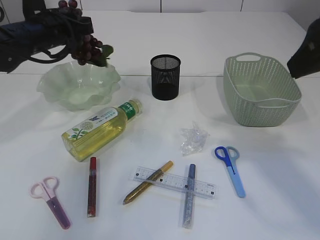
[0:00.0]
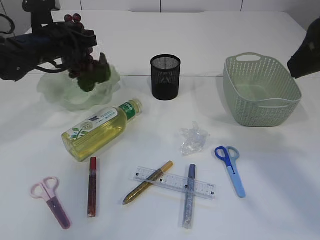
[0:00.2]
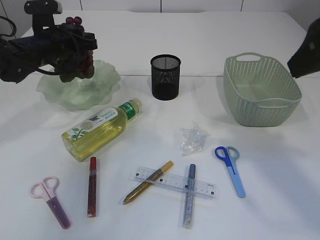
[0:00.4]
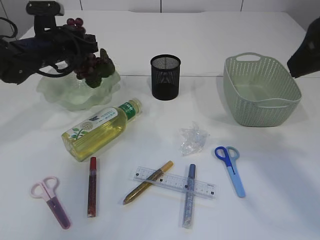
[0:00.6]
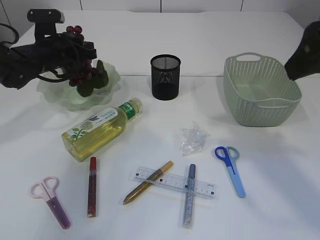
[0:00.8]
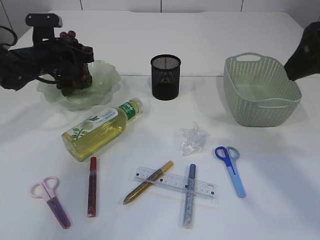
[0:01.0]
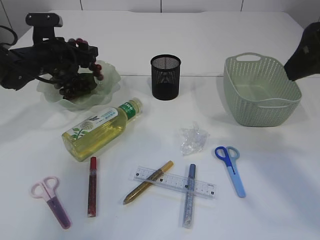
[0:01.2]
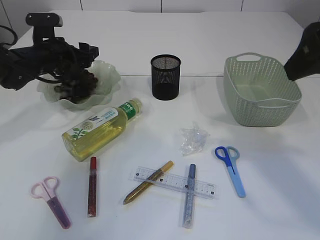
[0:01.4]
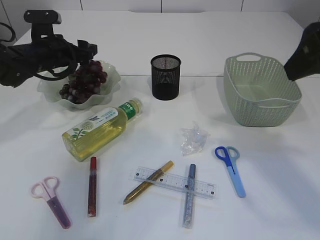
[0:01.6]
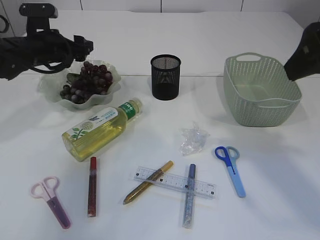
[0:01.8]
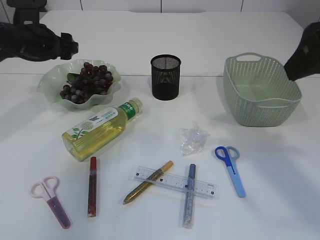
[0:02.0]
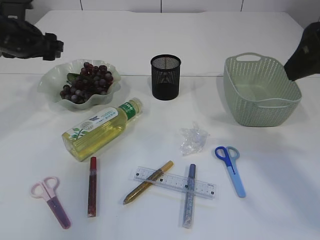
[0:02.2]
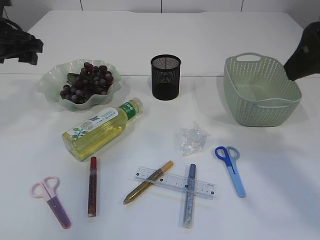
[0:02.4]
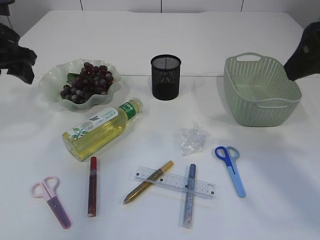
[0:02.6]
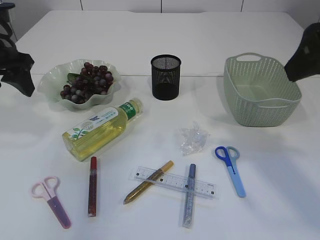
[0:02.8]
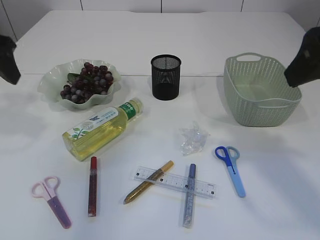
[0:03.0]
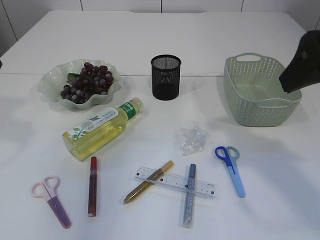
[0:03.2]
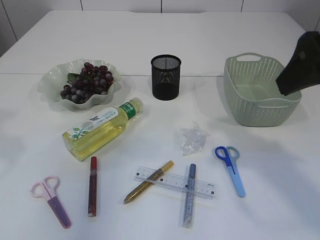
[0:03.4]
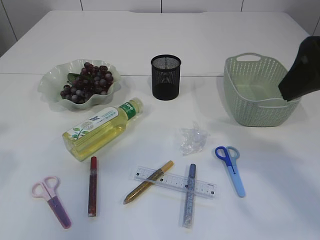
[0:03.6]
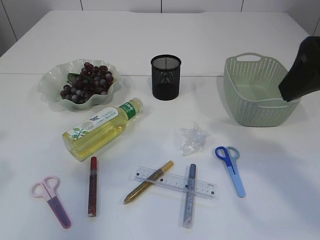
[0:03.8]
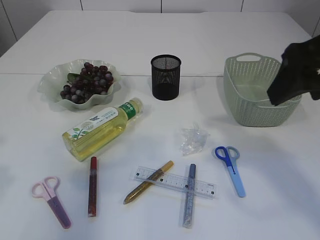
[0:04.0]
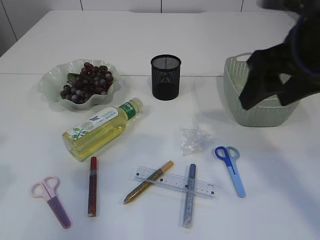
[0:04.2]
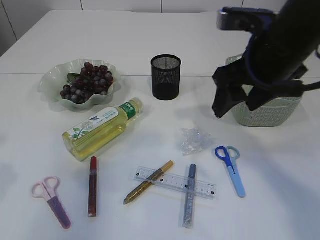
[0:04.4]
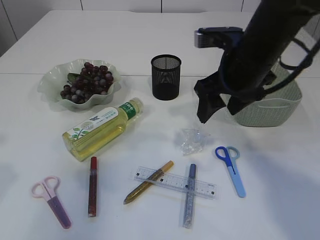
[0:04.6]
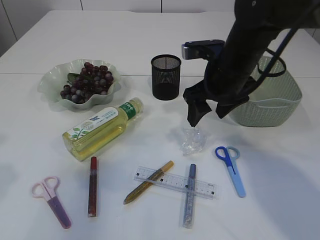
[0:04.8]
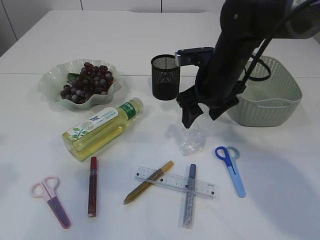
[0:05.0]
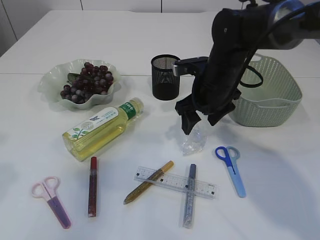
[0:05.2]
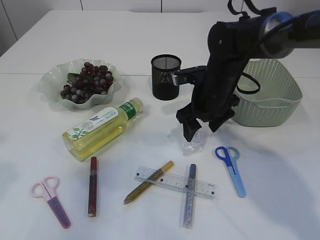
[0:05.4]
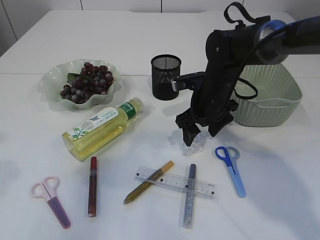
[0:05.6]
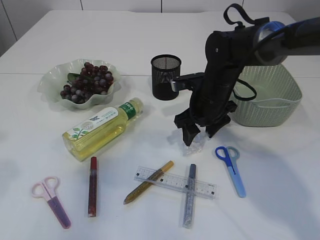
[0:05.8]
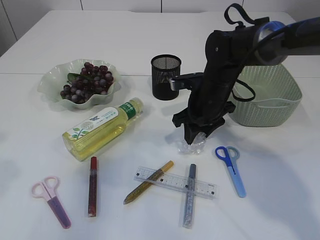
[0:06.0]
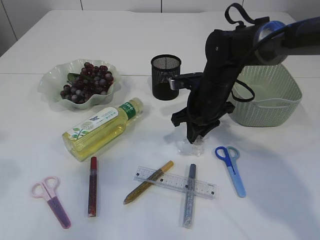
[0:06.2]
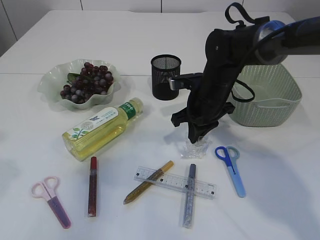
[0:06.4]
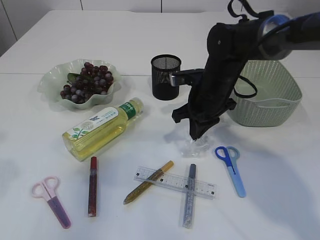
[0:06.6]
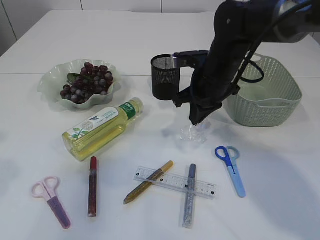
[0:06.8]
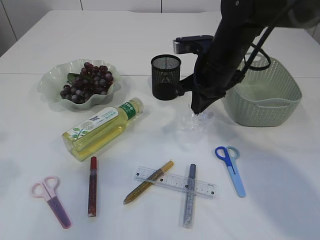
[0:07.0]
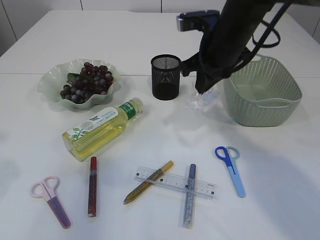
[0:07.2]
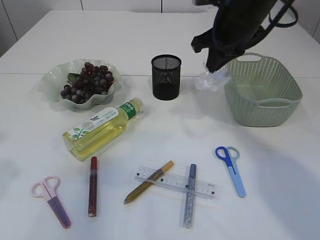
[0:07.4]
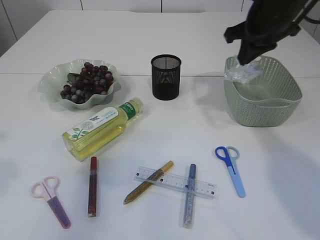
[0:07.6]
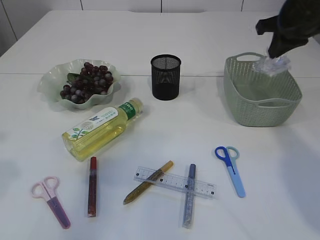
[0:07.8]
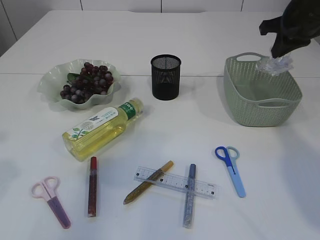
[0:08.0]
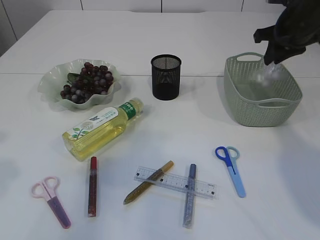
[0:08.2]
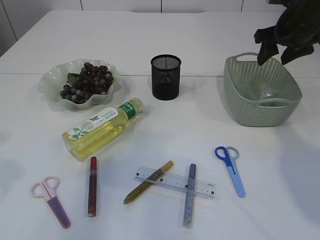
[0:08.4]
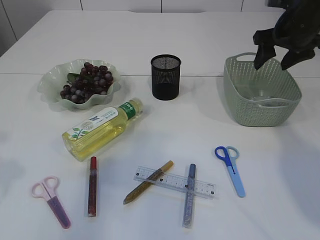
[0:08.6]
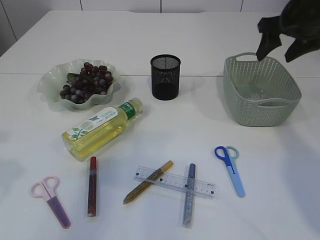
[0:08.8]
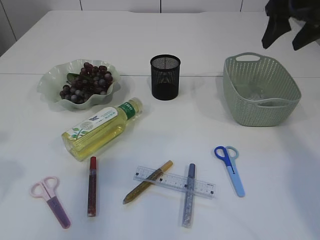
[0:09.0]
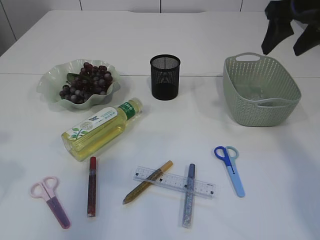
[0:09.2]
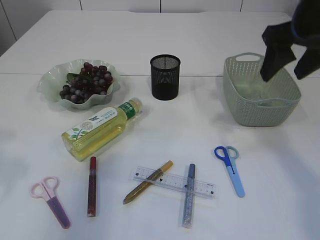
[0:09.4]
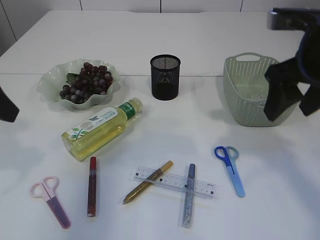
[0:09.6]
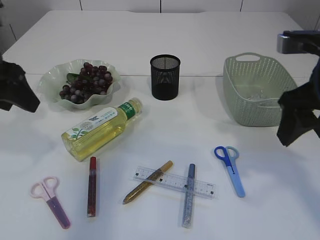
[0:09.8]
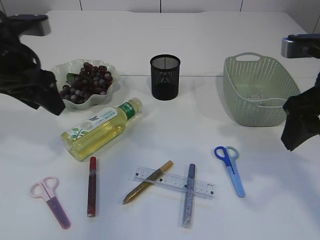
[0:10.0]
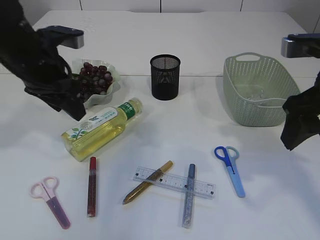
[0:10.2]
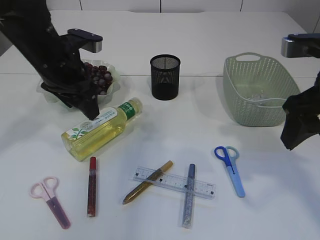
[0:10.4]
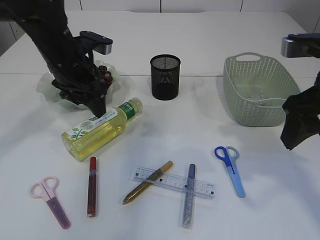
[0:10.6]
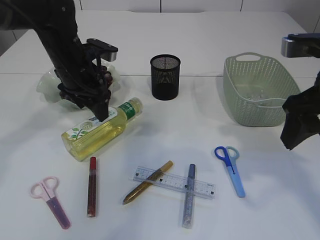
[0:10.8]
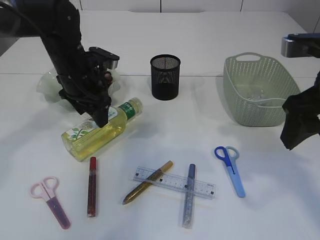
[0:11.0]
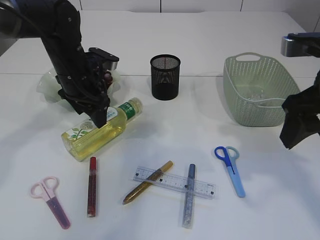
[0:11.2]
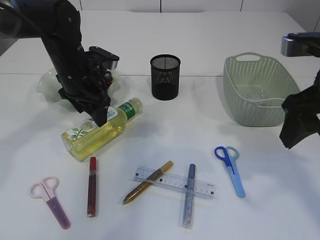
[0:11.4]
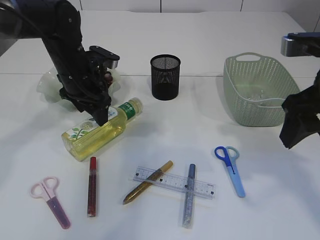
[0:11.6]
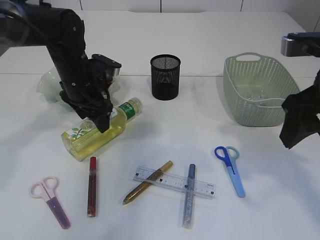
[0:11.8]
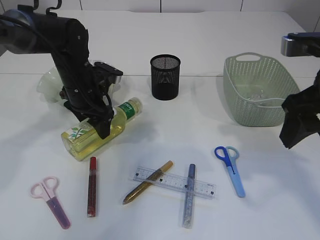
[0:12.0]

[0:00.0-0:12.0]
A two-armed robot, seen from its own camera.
Step, 0.0 to 1.6 s: Place the grapes in the plate.
Step, 1.8 to 7.0 s: Pick up the plastic.
Step, 7.2 to 8.2 s: Place the plastic in the basket.
0.0 to 1.6 s: The left gripper heads downward, covering approximately 5 cm, and opens up.
1.6 to 3.0 s: The left gripper travels backward and upward by about 20 cm.
3.0 to 4.4 s: The right gripper travels forward, downward and to the left by approximately 10 cm; the left gripper is displaced backward by roughly 10 cm.
4.4 to 6.0 s: The right gripper travels downward and forward by approximately 20 cm.
6.0 to 7.6 s: The right gripper moves upward and to the right, about 20 cm, and closes.
7.6 to 9.0 s: The right gripper shifts about 5 cm to the right, and opens up.
9.0 to 10.4 s: The left gripper travels forward, to the right and downward by roughly 20 cm. The right gripper is displaced backward by about 15 cm.
10.4 to 12.0 s: The left gripper travels downward and forward by approximately 10 cm.

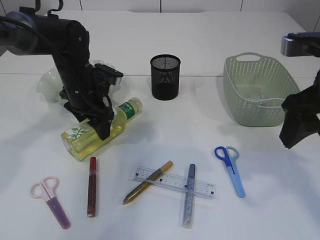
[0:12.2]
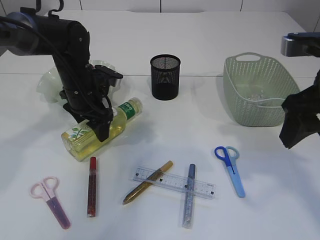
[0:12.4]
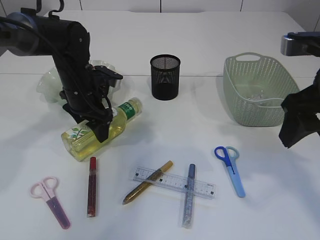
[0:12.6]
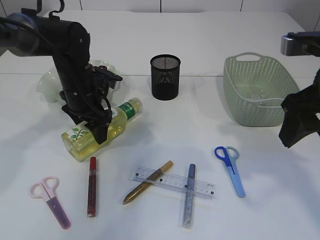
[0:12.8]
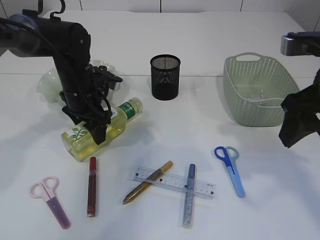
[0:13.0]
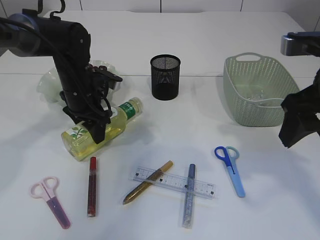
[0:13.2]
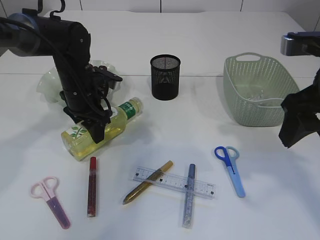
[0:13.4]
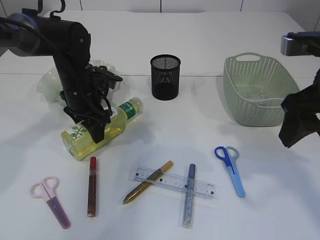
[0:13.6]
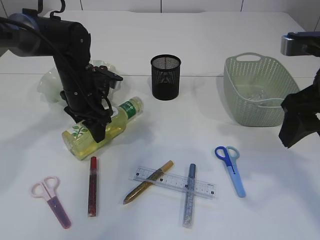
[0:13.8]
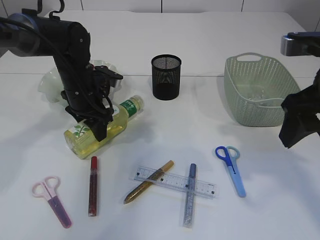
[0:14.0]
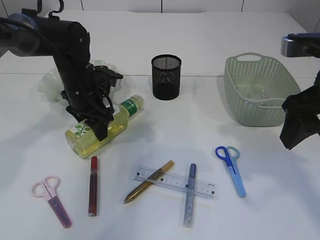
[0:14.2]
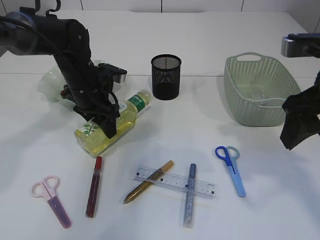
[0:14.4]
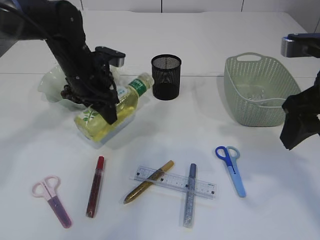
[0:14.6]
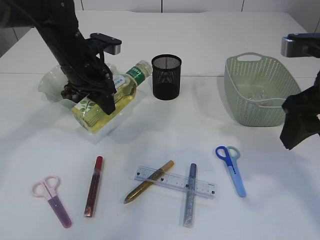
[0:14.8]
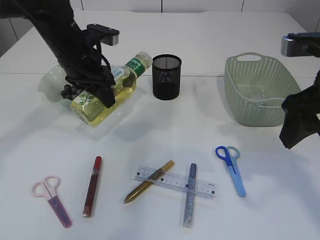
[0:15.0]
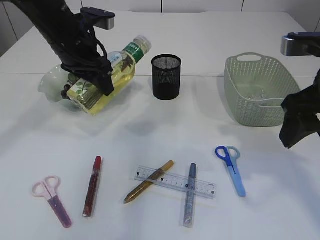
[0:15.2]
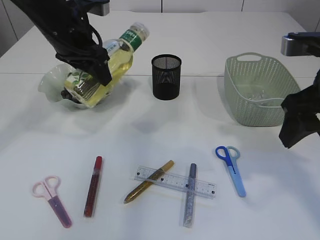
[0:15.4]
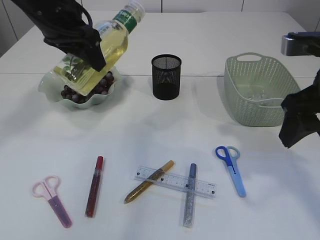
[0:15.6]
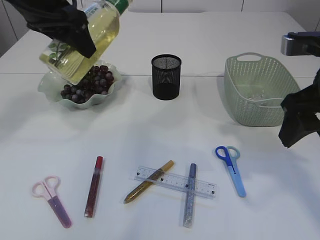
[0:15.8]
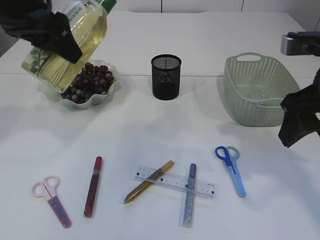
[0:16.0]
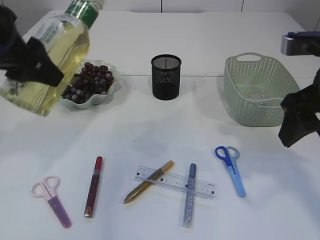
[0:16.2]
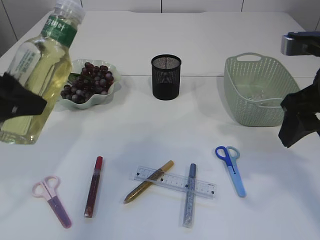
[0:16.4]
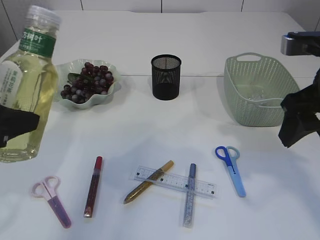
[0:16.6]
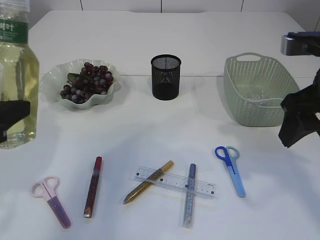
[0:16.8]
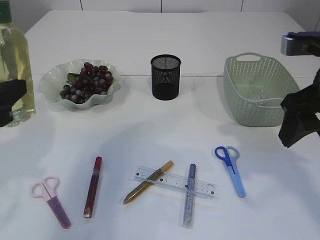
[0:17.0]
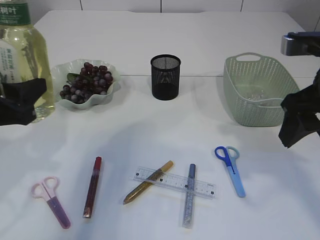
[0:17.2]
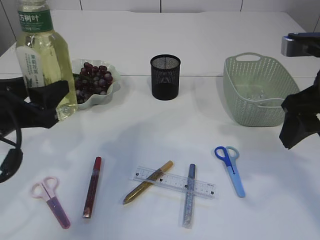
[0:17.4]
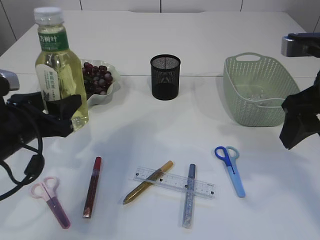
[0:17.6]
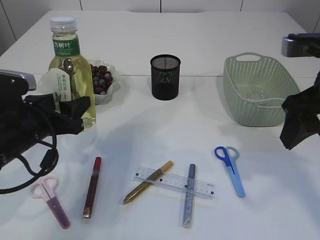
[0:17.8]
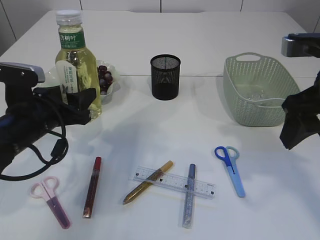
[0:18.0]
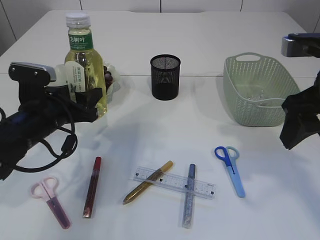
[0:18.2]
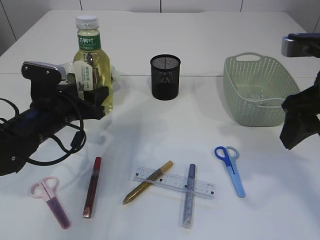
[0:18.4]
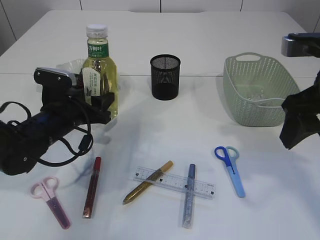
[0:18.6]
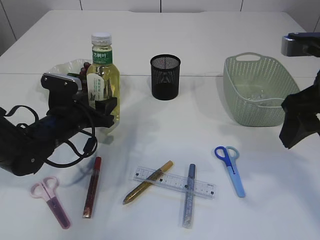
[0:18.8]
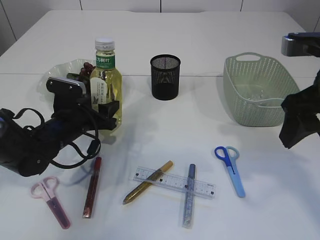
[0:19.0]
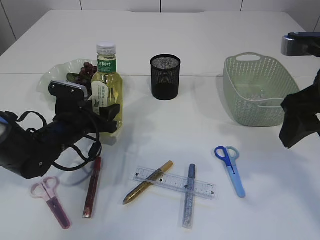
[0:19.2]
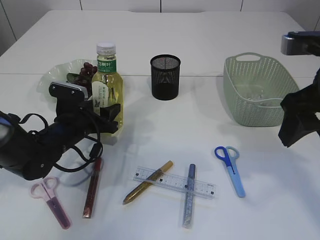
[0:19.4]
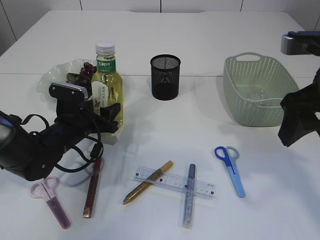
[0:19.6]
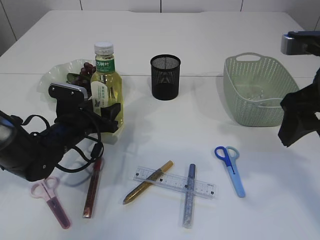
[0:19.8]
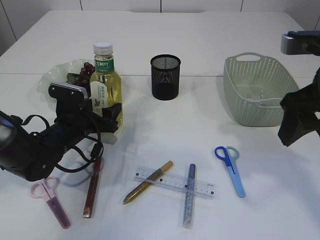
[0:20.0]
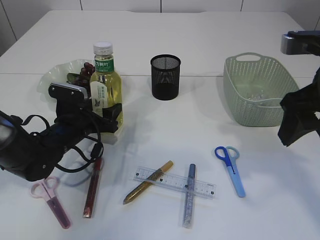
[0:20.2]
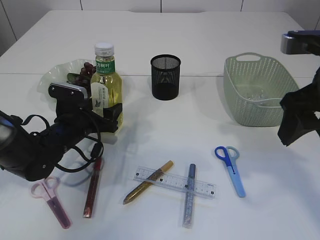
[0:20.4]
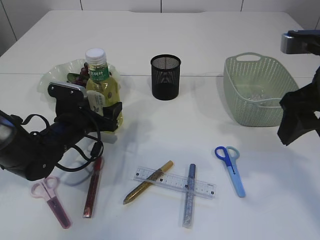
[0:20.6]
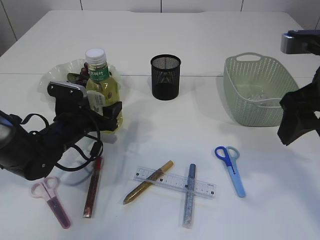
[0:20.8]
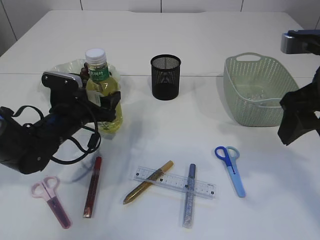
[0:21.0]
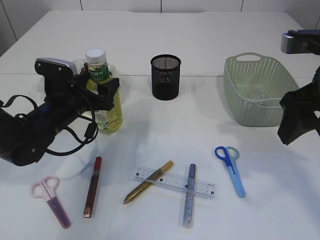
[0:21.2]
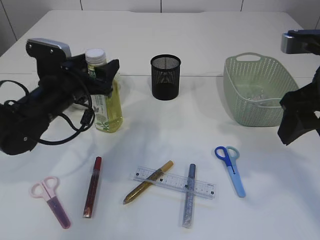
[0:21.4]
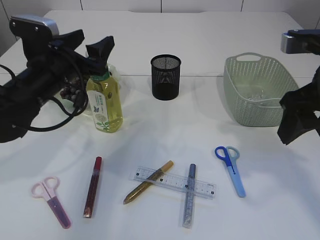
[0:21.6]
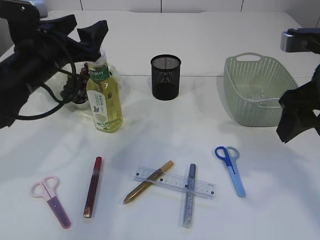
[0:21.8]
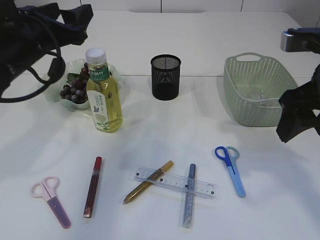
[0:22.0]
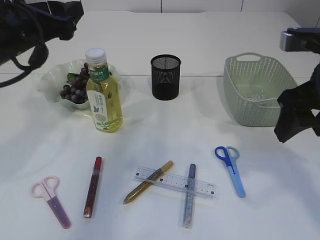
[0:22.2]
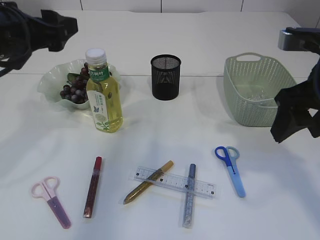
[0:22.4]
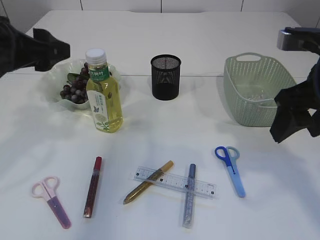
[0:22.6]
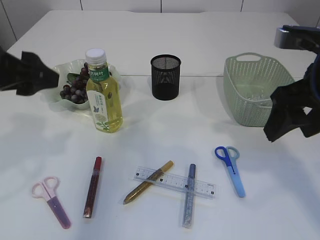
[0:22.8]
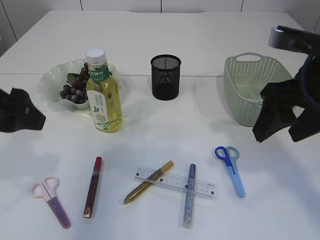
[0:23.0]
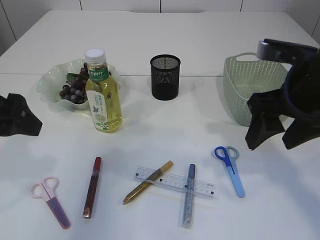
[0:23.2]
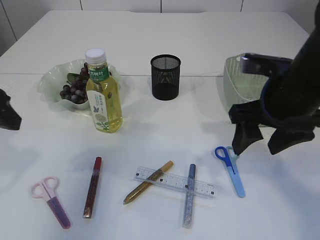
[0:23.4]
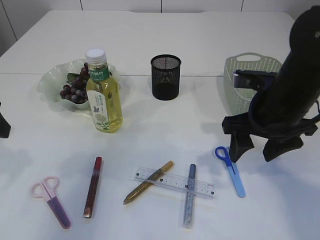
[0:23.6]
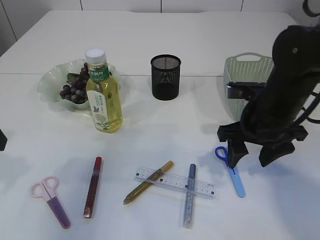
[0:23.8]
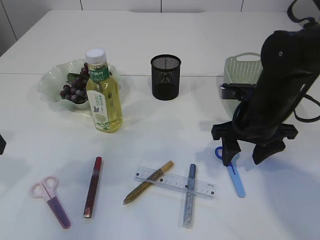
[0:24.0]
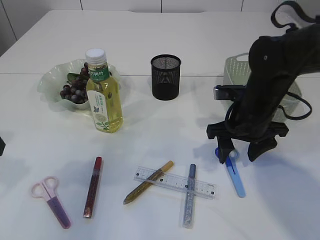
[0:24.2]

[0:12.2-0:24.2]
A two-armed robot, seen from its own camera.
Step, 12.2 to 15.0 s: Pick up the bottle with the left arm.
Step, 15.2 to 21.6 s: Place the bottle.
12.2 to 13.8 s: Both grippers stay about where they are.
13.8 to 15.2 s: The left gripper moves upward, approximately 10 cm.
15.2 to 16.6 s: The left gripper travels backward by about 20 cm.
16.6 to 18.2 s: The left gripper heads downward and forward, covering about 20 cm.
18.2 to 19.8 s: The left gripper heads downward and forward, covering about 10 cm.
19.8 to 21.2 s: The left gripper travels upward by approximately 5 cm.
21.2 to 22.6 s: The left gripper goes approximately 20 cm upward and backward.
22.6 to 24.2 s: The right gripper goes some 15 cm downward and forward. Meanwhile the left gripper travels to the left and backward by approximately 10 cm.
